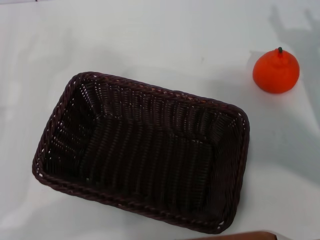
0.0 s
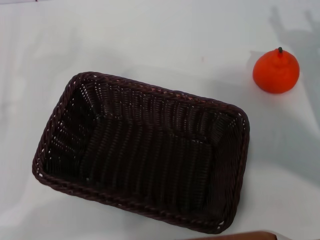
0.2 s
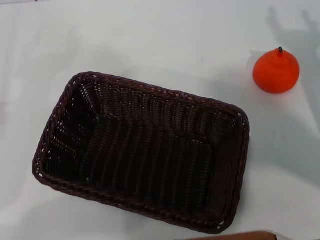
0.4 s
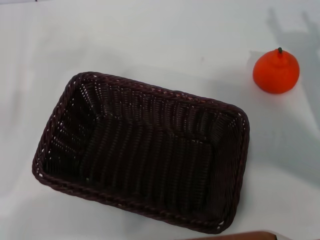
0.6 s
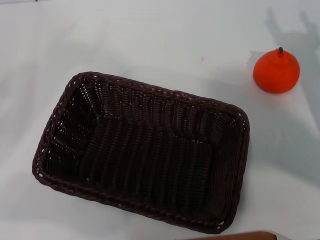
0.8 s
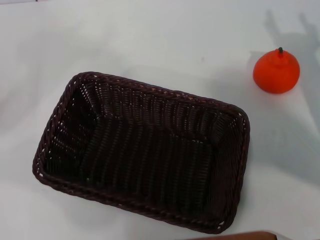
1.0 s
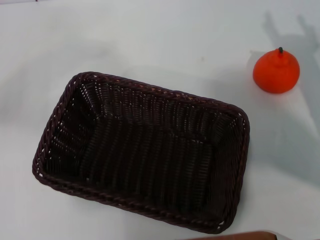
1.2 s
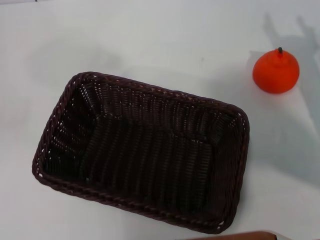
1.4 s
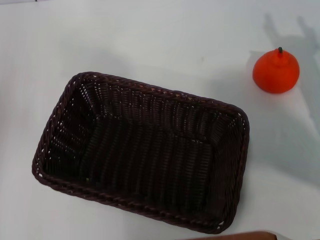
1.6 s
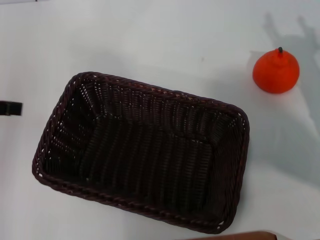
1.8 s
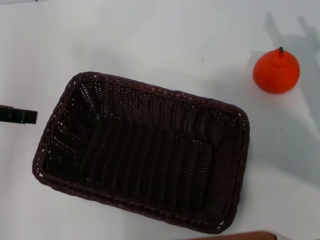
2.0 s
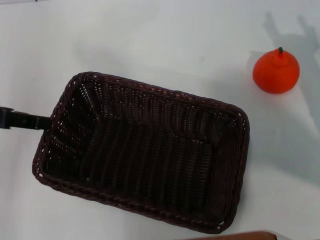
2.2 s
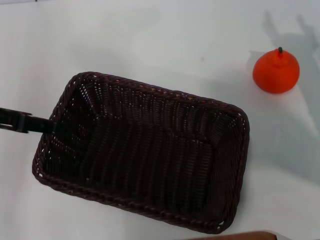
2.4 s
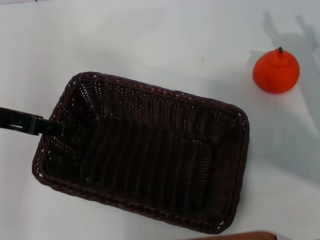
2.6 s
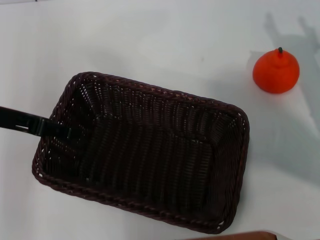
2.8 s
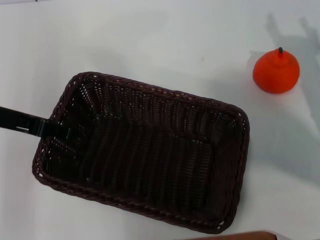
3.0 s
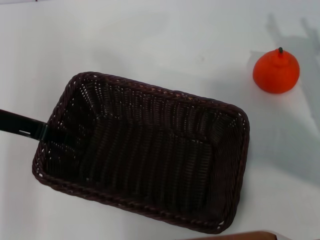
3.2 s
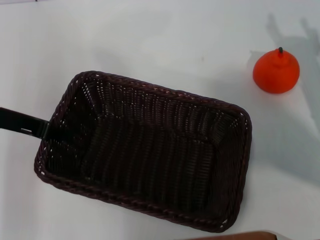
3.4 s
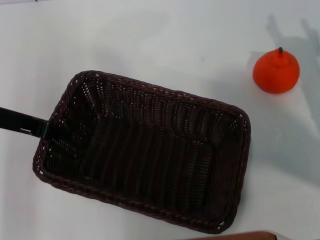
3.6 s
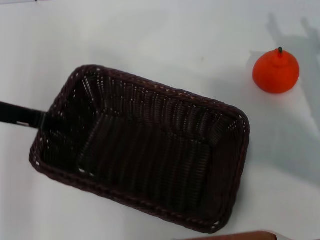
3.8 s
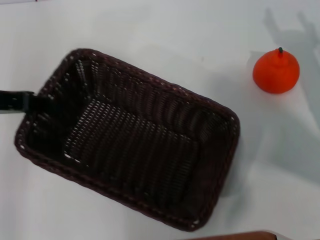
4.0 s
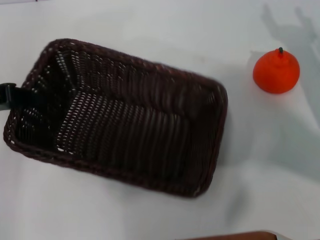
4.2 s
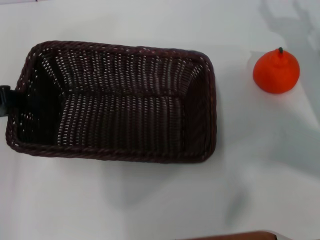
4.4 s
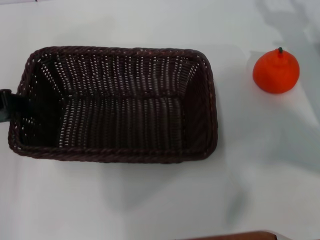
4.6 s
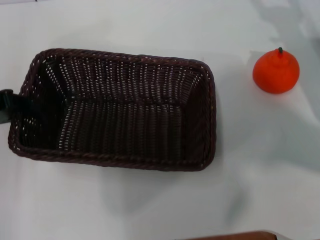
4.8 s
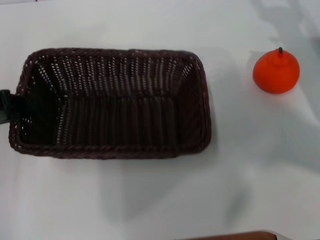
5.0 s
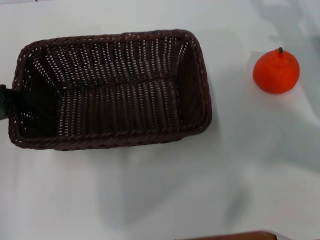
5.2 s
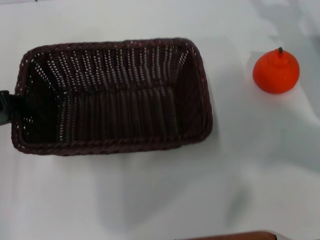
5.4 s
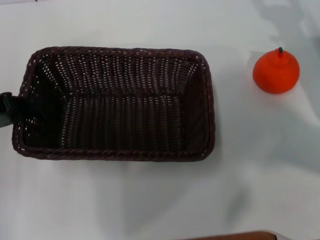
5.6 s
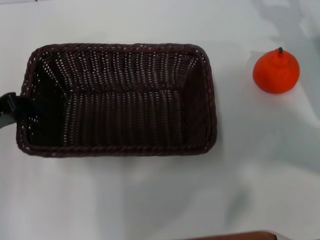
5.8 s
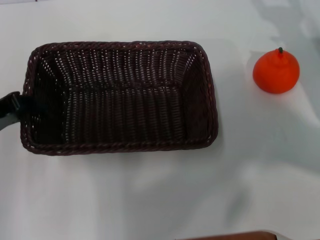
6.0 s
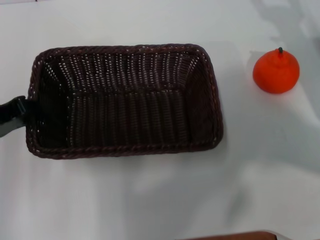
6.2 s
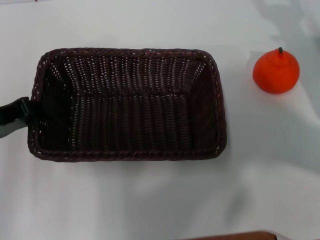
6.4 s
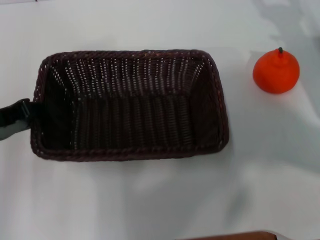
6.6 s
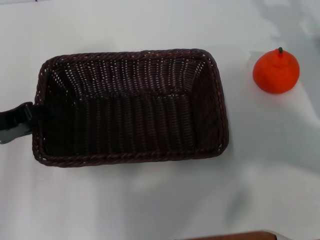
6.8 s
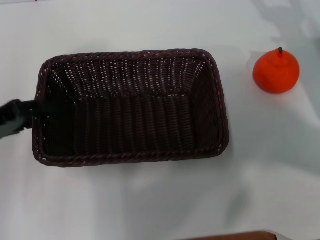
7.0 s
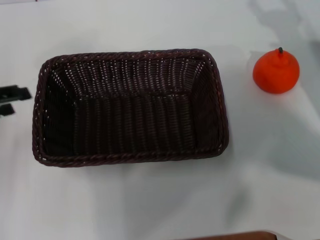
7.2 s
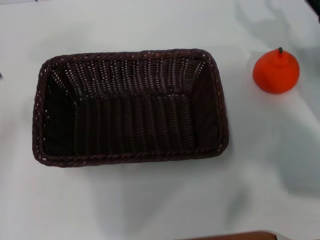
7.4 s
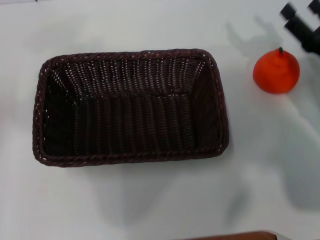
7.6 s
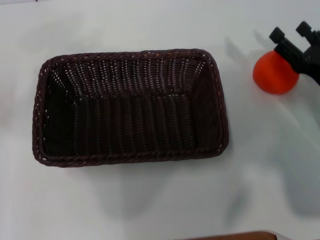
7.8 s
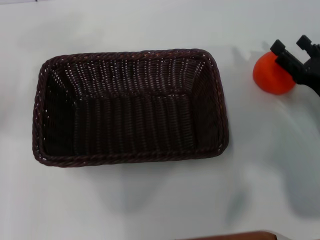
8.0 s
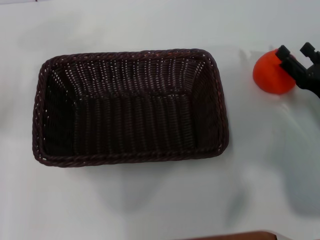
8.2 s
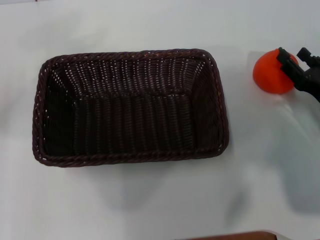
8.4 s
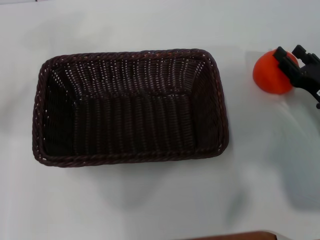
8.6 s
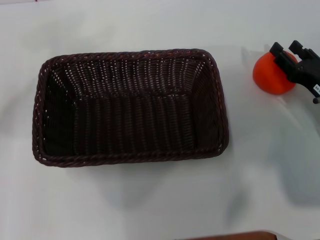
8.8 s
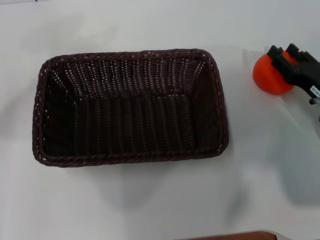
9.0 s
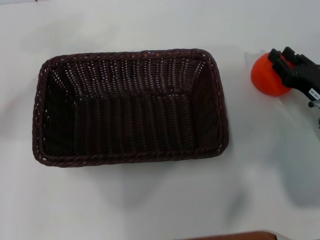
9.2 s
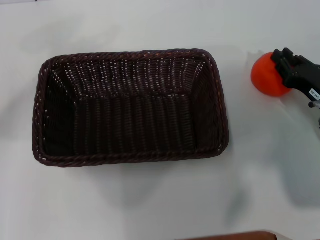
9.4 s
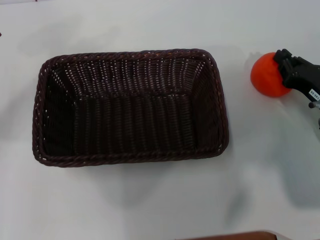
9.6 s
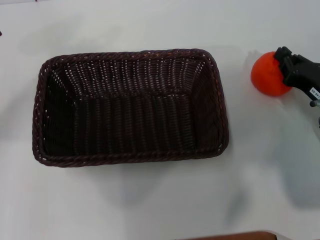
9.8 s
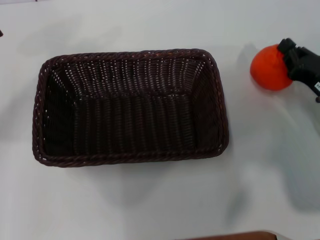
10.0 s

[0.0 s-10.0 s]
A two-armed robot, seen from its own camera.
Task of the whole recording: the left gripper pick up the black basket and place it horizontally in the middle of the table, the right gripper pick up the orange and place it into the black basket.
Step, 0.0 to 4.2 s: Pick up the dark basket with the left gripper.
Step, 4.4 to 7.0 s: Place the dark basket in the center of view with the left gripper.
Step, 7.4 to 10.0 s: Pick up the orange with the right gripper.
0.0 to 1.4 s: The left gripper shifts about 20 cm upward.
1.4 to 2.8 s: The left gripper moves to the right and downward, some 15 cm.
2.8 to 4.2 s: The left gripper closes up.
4.2 to 5.8 s: There are only small adjustments of the grippers.
5.8 to 7.2 s: The left gripper opens its fingers.
7.2 to 8.6 s: The left gripper moves about 5 cm, while the right gripper is displaced backward and downward by approximately 10 cm.
8.6 to 10.0 s: The right gripper closes up.

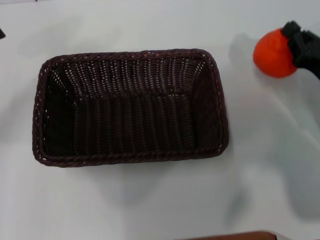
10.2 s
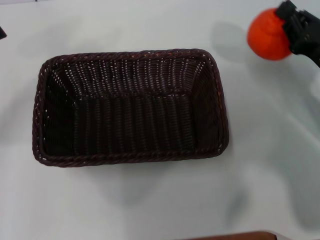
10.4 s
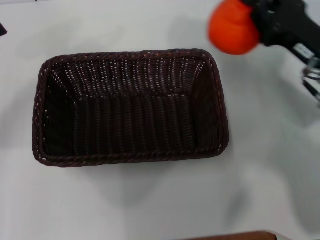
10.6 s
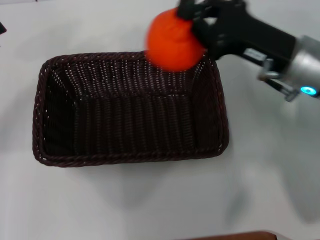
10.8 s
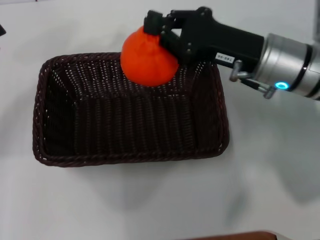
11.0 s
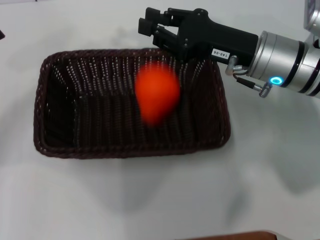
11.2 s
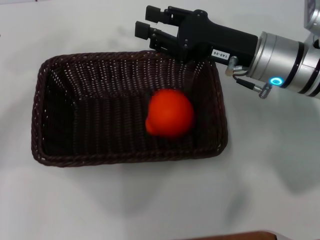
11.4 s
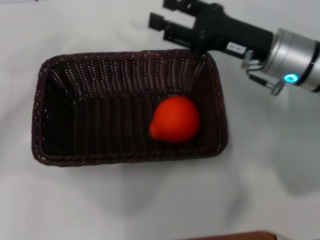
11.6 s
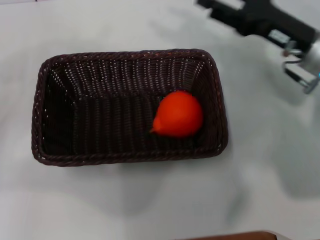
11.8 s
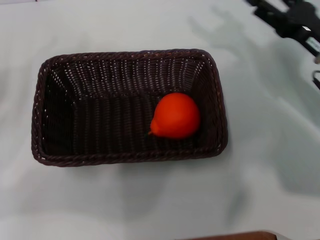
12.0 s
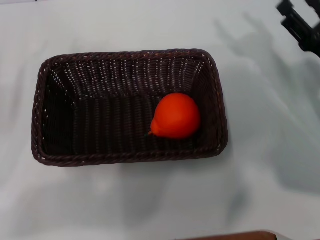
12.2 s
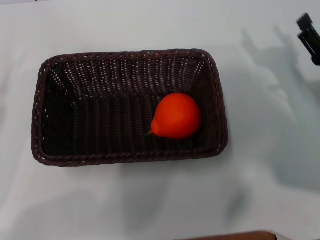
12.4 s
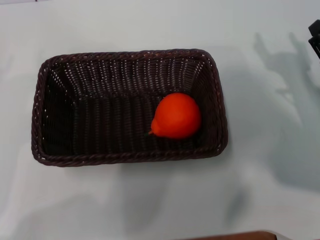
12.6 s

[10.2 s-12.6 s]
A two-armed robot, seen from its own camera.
Task of the whole recording: the left gripper pick up the black basket and place it horizontally in the middle of the table, the right gripper pick up the orange and place it into the black basket.
Step, 10.2 to 11.4 s: Place the orange into the dark basket with the right gripper.
10.2 to 11.4 s: The right gripper is displaced to the left, upward and forward by about 15 cm.
11.4 to 12.6 s: The left gripper travels downward and backward by some 10 cm. Meanwhile the right gripper travels to the right, downward and backward by about 20 cm, and opens.
